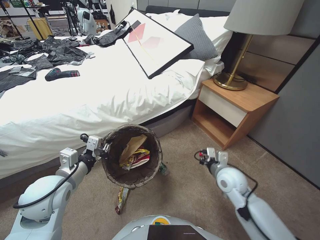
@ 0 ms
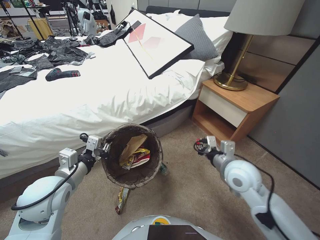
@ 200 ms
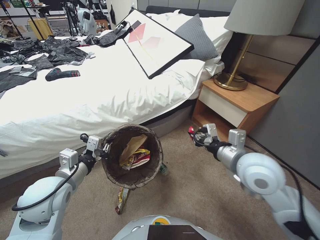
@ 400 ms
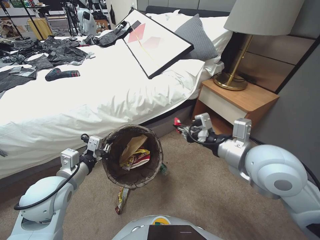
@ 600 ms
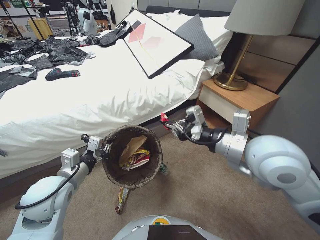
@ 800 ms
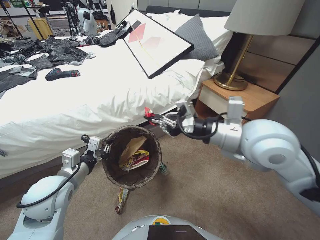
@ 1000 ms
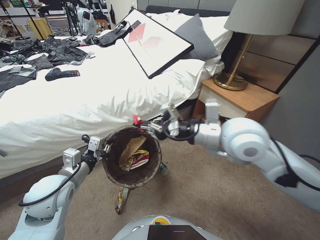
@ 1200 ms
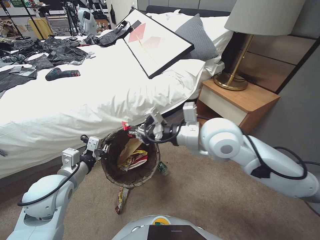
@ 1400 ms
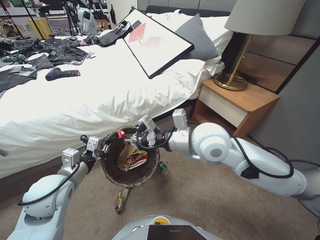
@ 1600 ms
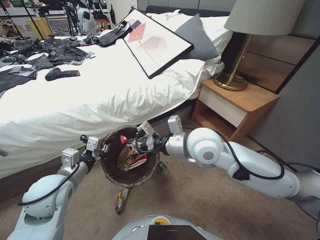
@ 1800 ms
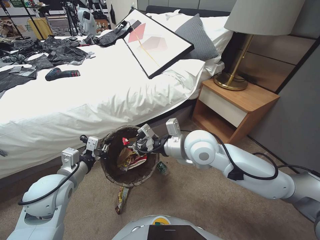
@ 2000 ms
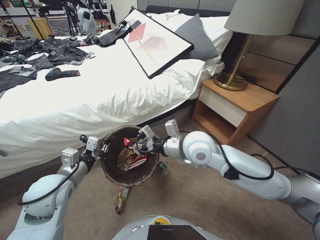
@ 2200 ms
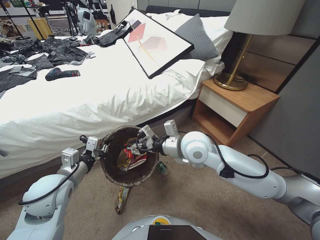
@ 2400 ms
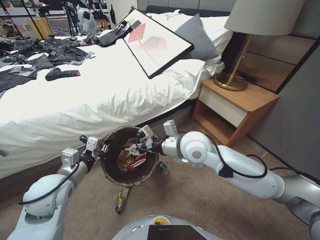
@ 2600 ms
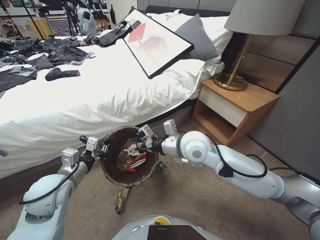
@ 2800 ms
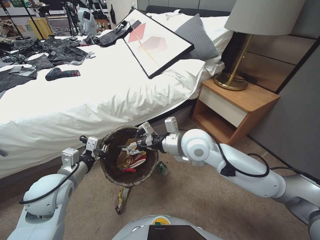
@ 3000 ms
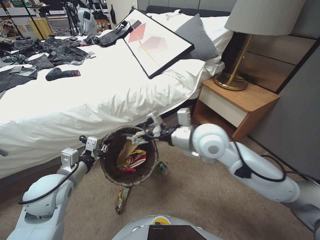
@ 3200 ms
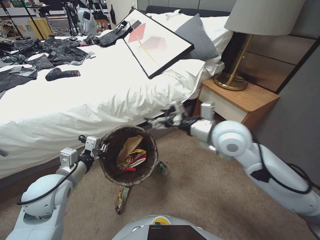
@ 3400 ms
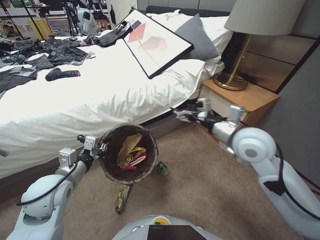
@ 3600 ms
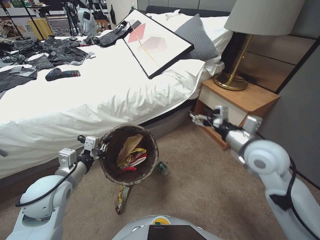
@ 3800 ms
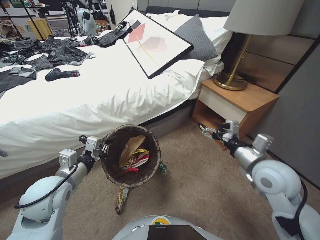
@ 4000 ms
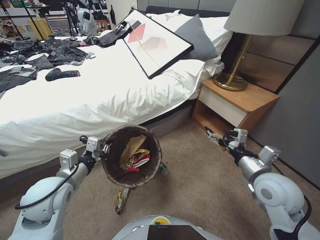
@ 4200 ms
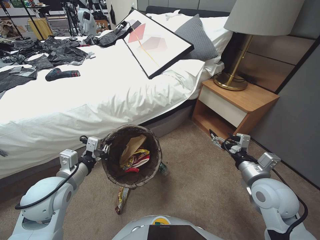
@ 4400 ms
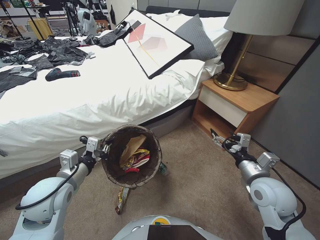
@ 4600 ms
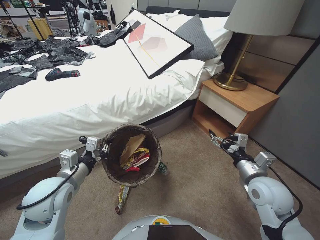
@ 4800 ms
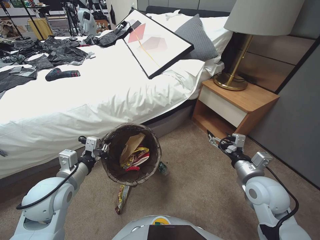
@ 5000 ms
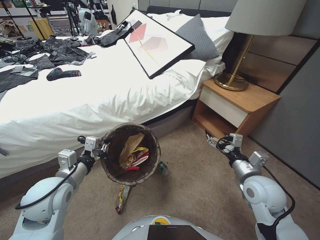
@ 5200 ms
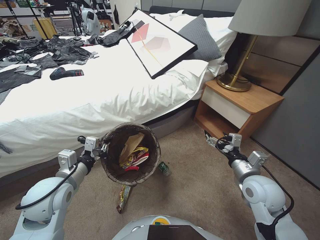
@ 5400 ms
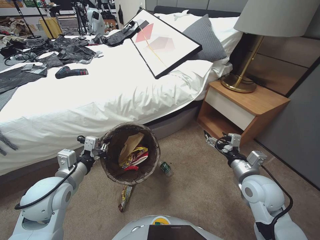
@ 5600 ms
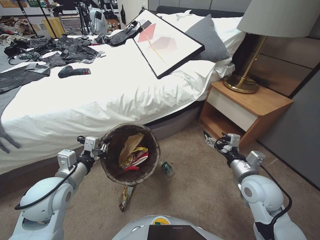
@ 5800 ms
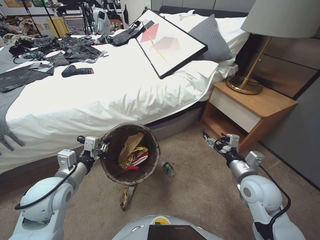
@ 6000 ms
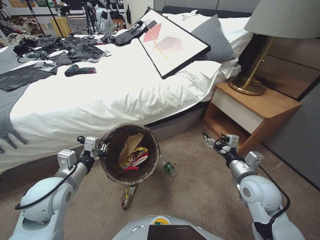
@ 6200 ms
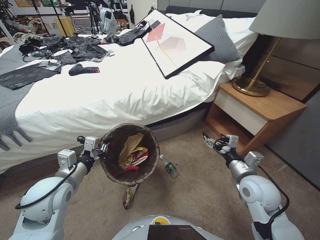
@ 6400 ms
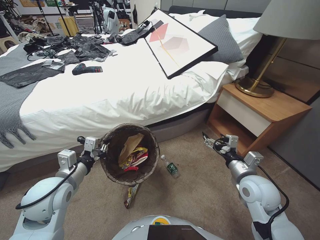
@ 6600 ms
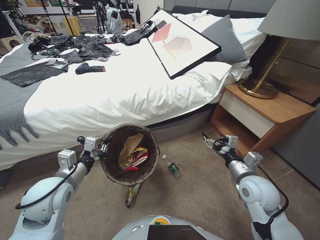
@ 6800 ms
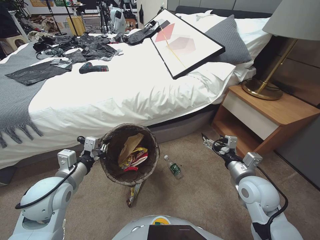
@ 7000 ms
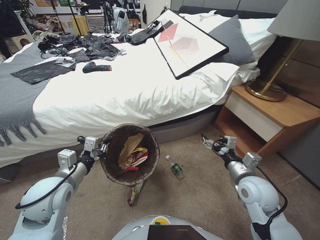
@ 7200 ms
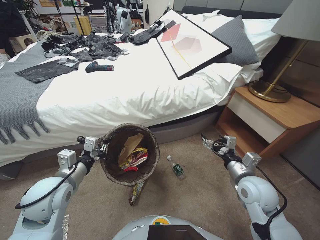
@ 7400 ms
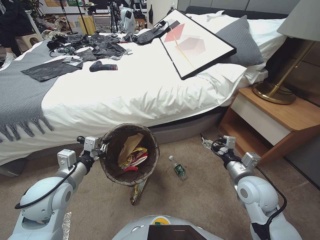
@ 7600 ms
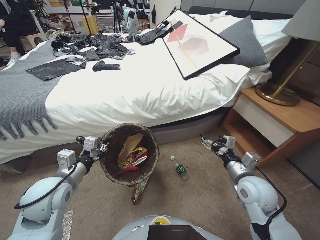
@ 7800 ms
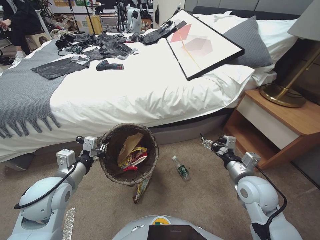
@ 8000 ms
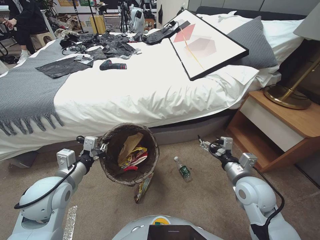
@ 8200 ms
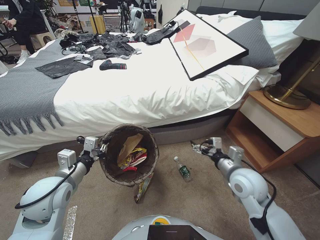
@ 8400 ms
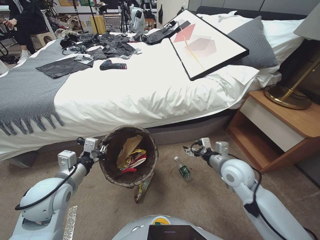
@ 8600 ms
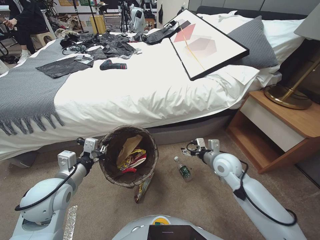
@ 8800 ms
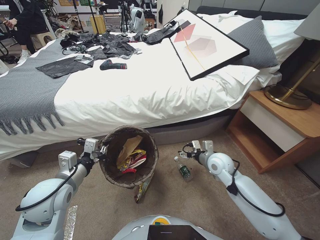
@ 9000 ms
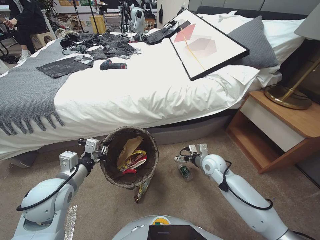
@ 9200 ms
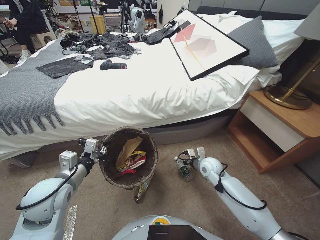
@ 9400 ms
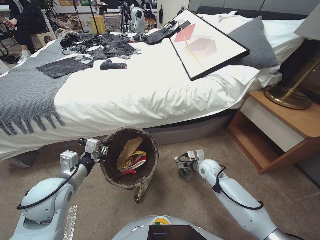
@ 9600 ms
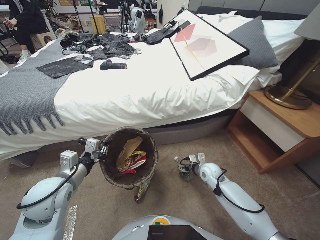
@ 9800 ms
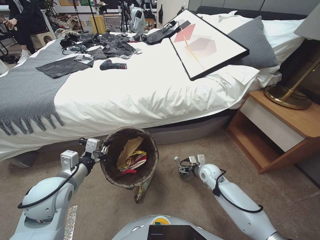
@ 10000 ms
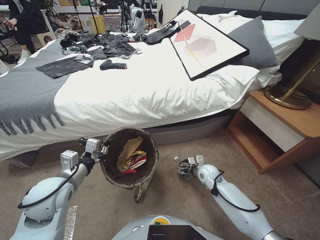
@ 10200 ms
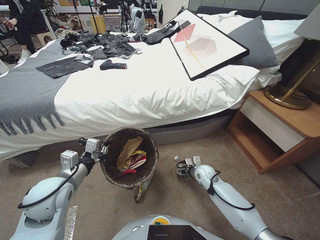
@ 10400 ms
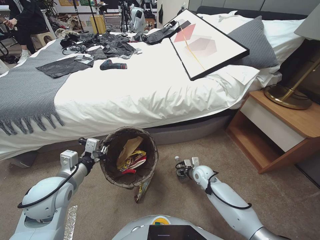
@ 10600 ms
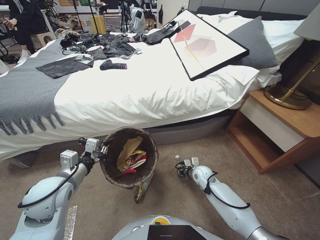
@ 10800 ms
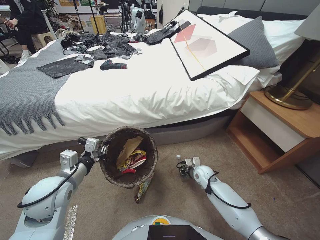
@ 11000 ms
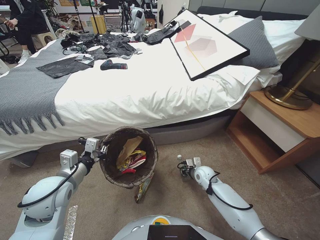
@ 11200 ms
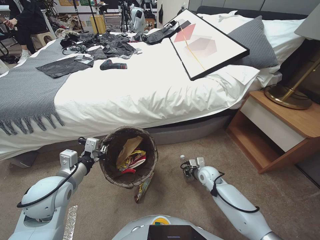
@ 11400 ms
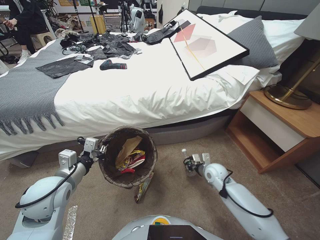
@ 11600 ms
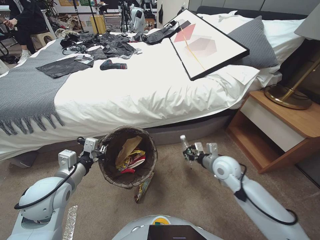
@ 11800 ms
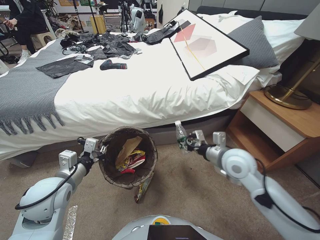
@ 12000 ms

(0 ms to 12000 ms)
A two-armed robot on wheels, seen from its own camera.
Task of the whole recording: Pick up the trash bin, then pick up the garbage from the floor and place it into the trash bin.
0 ms - 1600 ms: The right gripper goes some 30 cm upward and to the left.
1600 ms - 3000 ms: The right gripper moves downward, roughly 5 cm, and opens up.
3000 ms - 4400 ms: The right gripper moves to the right and backward, about 25 cm.
7600 ms - 9000 ms: The right gripper moves forward, about 10 cm.
9000 ms - 10400 ms: The right gripper moves downward, approximately 15 cm.
10400 ms - 12000 ms: The right gripper heads upward, covering approximately 20 cm, and closes up.

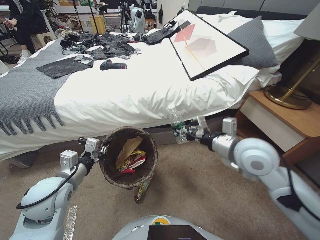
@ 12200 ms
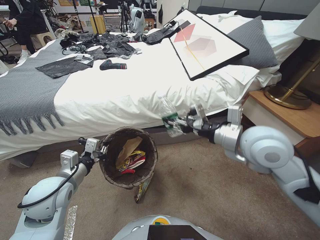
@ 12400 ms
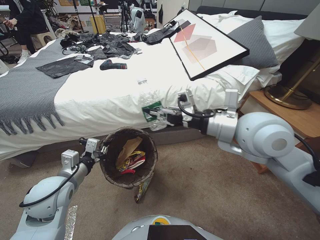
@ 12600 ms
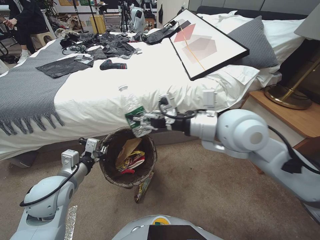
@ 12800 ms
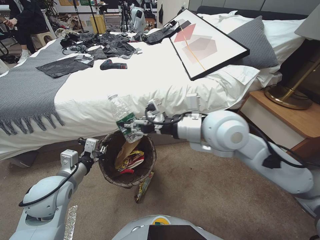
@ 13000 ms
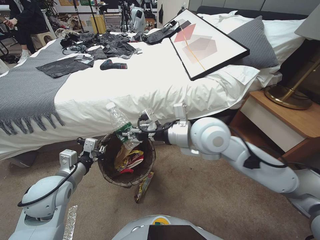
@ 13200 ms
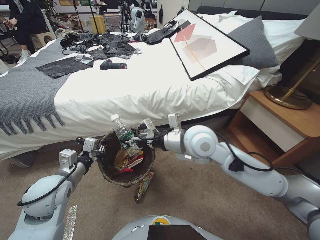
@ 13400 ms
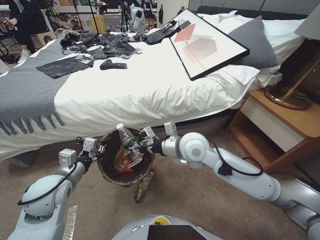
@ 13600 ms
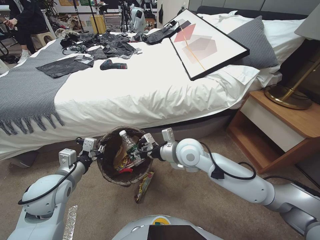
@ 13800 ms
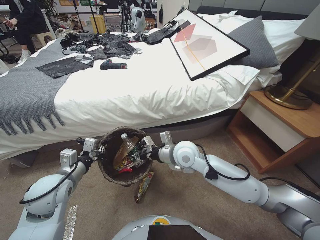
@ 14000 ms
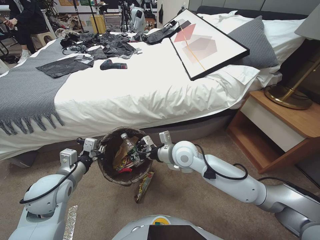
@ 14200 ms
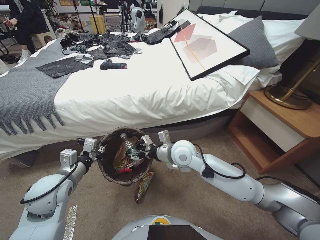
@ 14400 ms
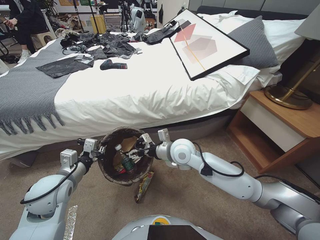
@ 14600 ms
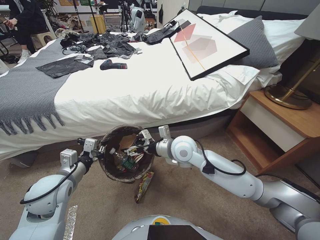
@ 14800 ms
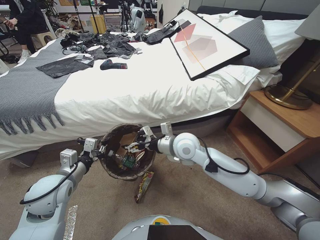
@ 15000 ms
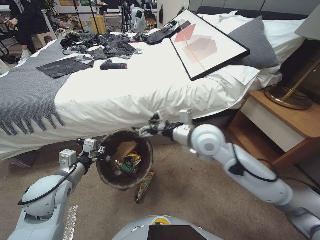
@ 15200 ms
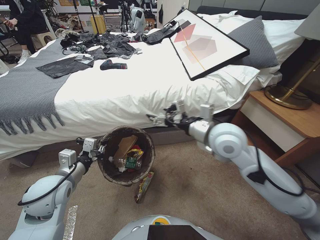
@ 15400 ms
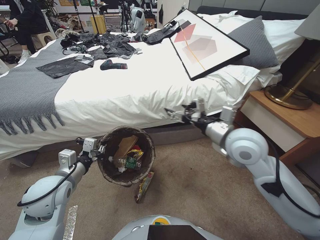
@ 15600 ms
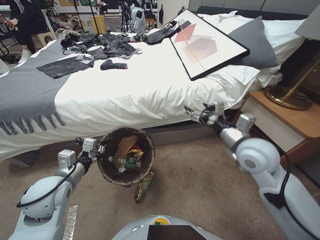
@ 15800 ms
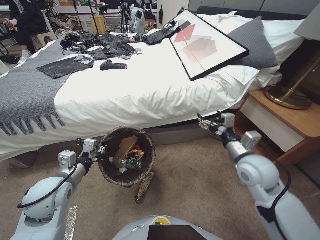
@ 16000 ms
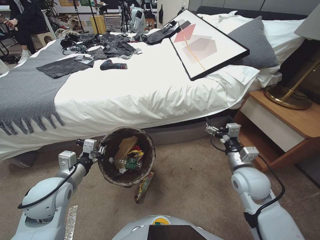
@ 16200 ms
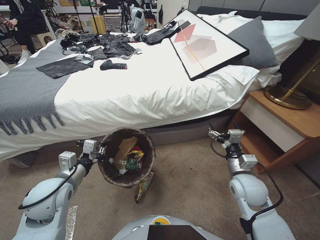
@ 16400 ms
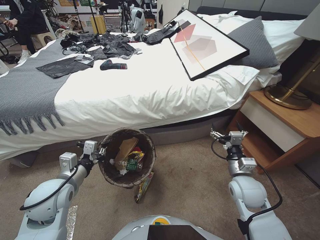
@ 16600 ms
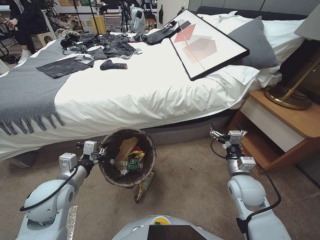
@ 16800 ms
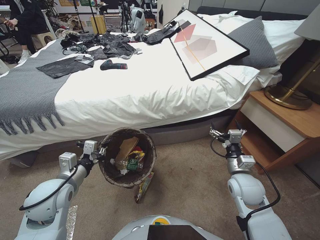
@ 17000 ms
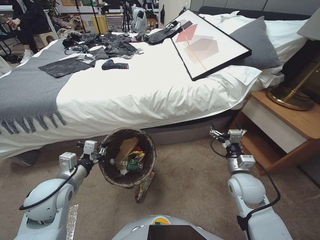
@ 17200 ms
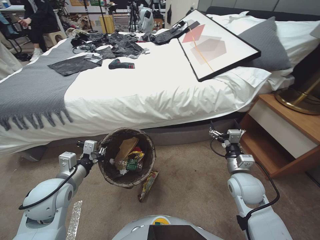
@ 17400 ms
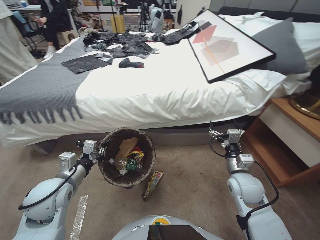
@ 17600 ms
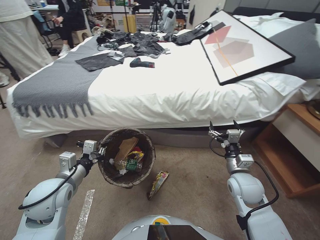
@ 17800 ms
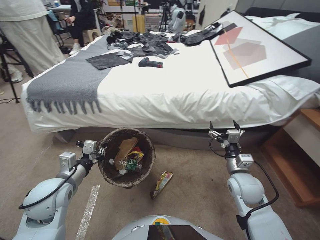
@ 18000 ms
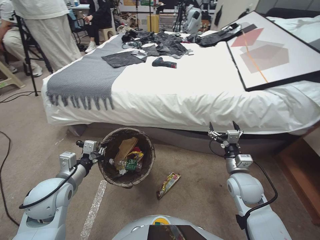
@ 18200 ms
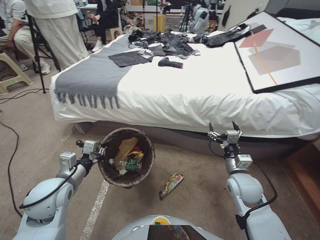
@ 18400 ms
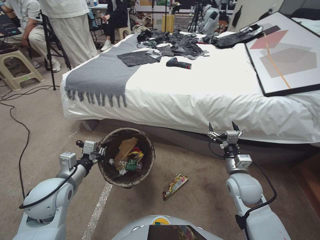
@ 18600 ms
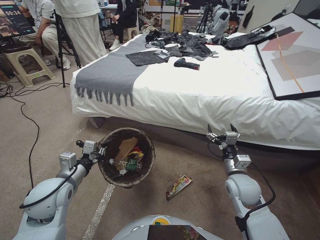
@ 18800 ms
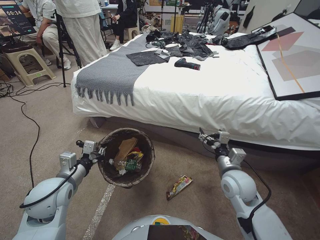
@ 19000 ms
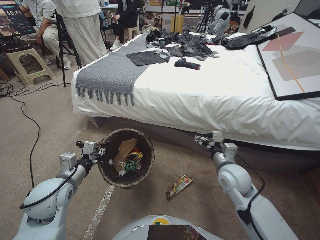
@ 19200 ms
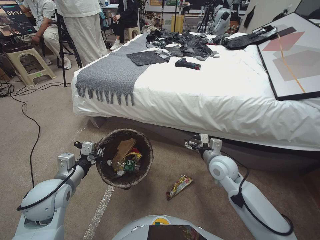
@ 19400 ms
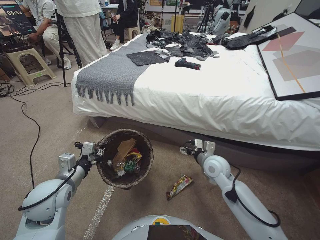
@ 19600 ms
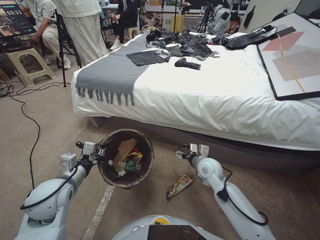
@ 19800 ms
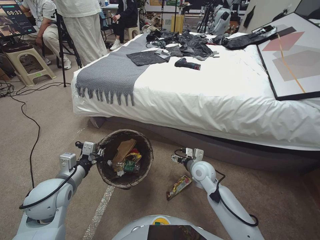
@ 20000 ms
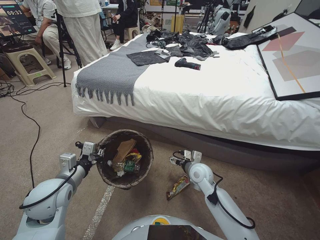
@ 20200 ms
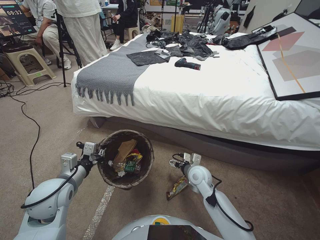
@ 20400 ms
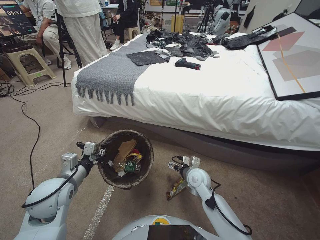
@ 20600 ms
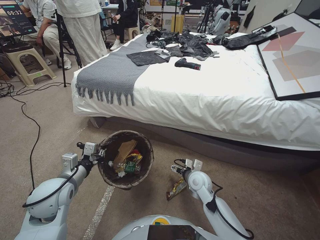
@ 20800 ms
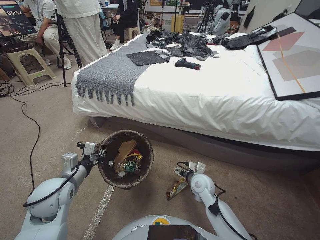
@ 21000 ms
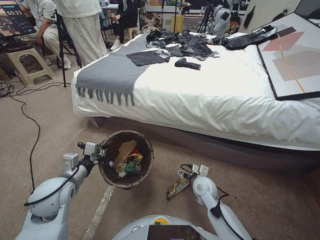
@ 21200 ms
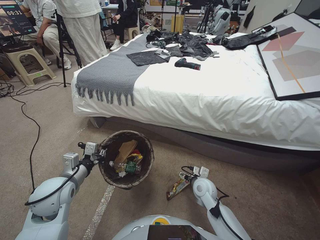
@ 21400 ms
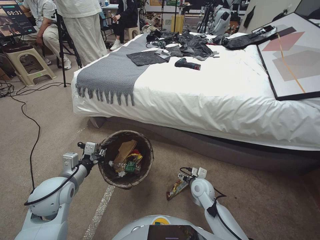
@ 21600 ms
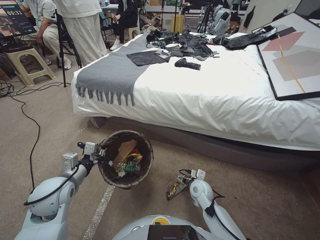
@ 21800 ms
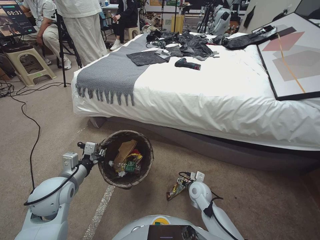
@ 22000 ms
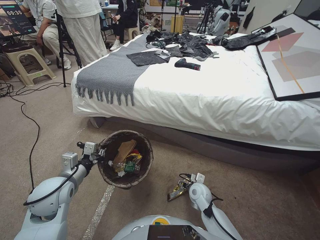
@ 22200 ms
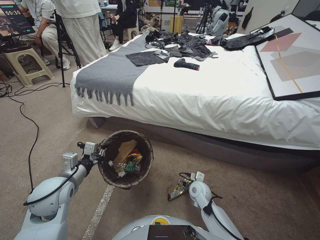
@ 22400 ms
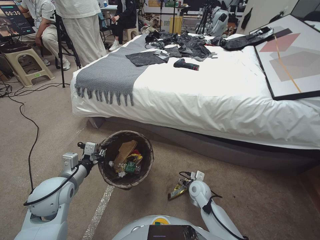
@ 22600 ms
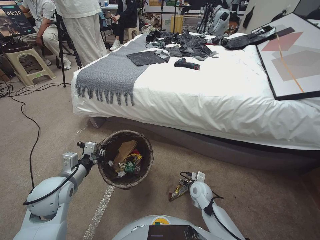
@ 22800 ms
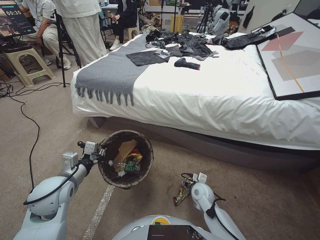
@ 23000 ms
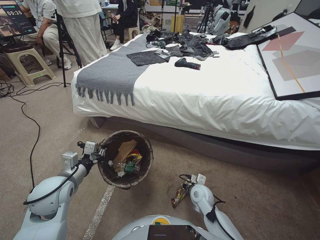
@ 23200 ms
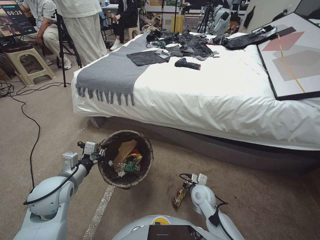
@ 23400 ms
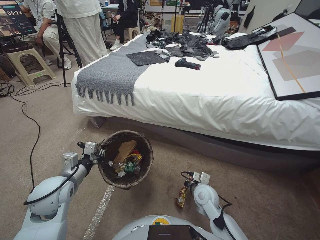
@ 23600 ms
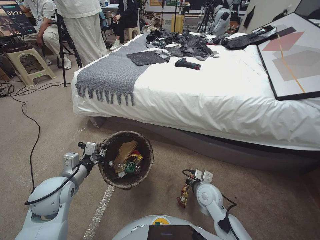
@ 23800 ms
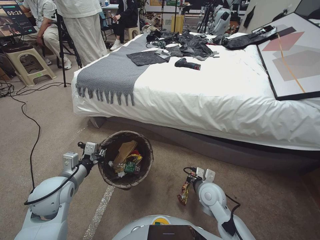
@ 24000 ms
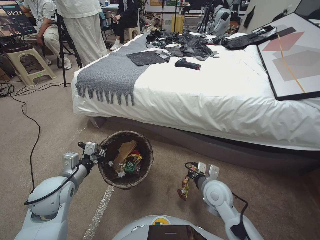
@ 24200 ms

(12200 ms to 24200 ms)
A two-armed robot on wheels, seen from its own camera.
Task of the whole recording: Pick up the trash bin, then pick up the garbage from the floor and place it into the trash bin.
12200 ms - 13800 ms: The right gripper goes approximately 15 cm to the left, and goes upward and returns, roughly 10 cm each way.
13800 ms - 15200 ms: The right gripper opens.
15200 ms - 16600 ms: The right gripper travels to the right, downward and backward by roughly 25 cm.
18200 ms - 19800 ms: The right gripper heads to the left and forward, covering approximately 10 cm.
19800 ms - 21200 ms: The right gripper heads downward, covering about 10 cm.
21200 ms - 22600 ms: The right gripper heads downward, covering roughly 5 cm.
22600 ms - 24200 ms: The right gripper heads upward, covering some 15 cm, and closes its fingers.
